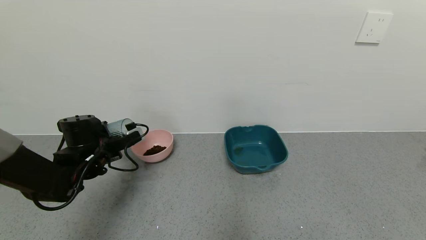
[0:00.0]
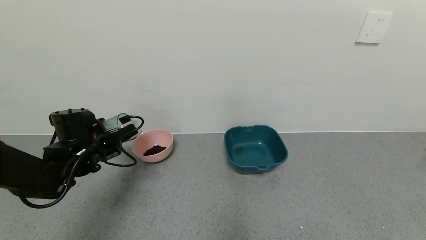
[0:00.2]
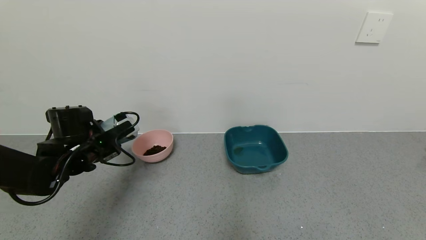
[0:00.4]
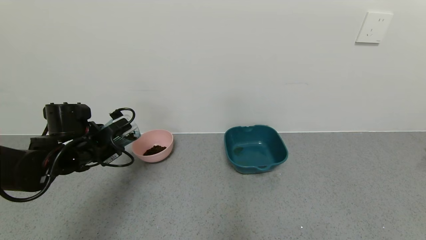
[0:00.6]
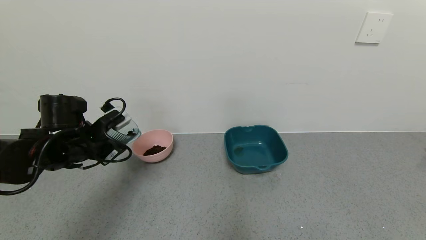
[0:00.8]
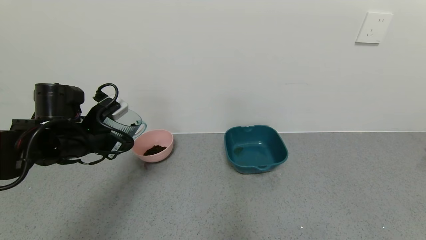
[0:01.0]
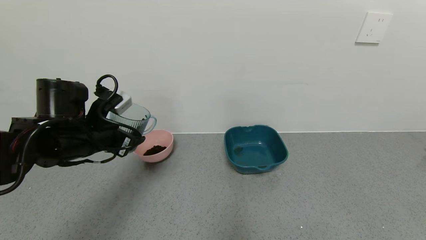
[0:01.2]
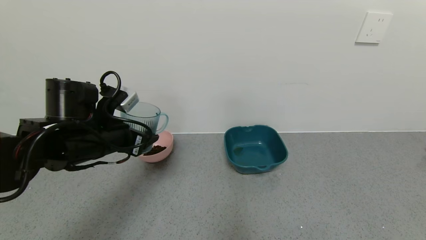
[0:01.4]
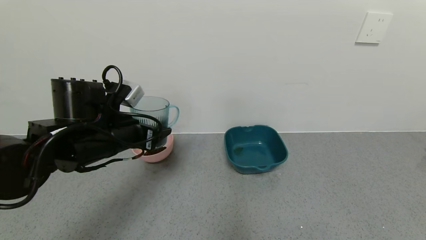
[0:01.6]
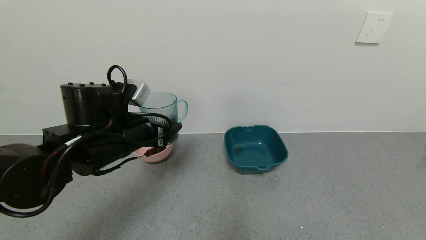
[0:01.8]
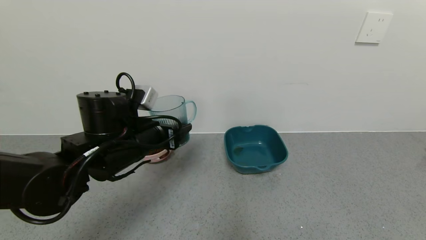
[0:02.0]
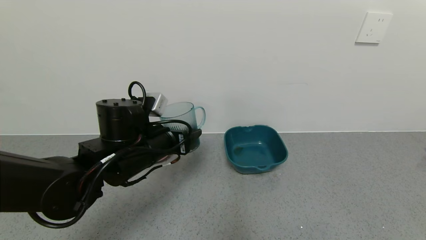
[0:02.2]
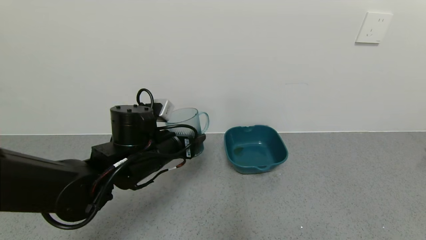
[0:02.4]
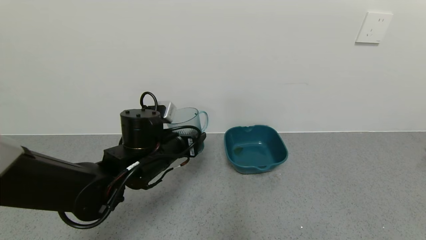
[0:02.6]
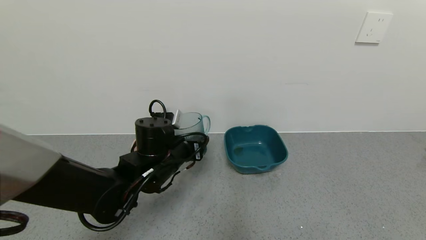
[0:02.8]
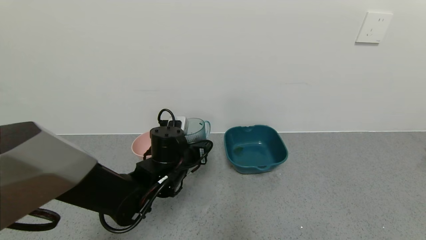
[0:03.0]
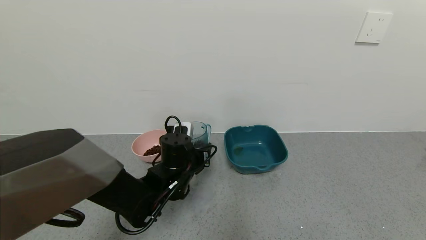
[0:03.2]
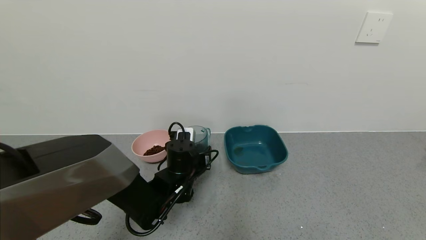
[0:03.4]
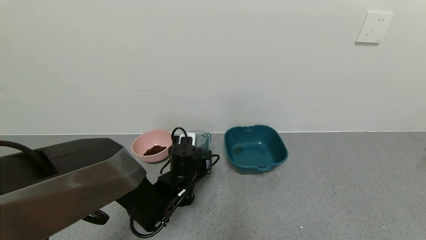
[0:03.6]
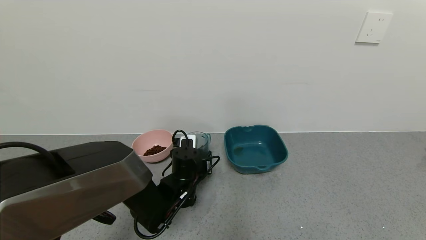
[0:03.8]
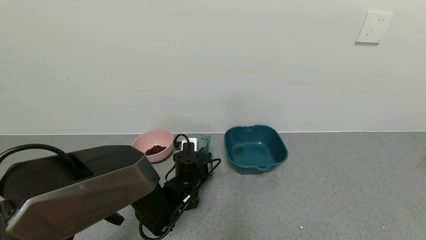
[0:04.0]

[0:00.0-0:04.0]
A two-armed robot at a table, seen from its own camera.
Task of the whole recording: use a gripper to pick up the cup and pour the solid into a bowl or tray.
Step, 0:00.2 to 0:04.0: Place the glass cup with the left gripper.
0:00.0 to 0:01.4: The left gripper moves upward, to the right and backward, approximately 15 cm.
0:01.4 to 0:02.6: The left gripper is displaced to the right and downward by roughly 10 cm.
0:02.6 to 0:04.0: The left gripper heads downward, covering roughly 10 cm.
